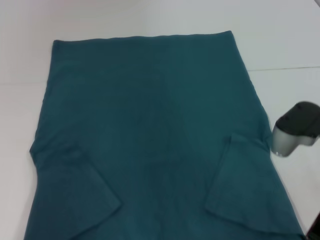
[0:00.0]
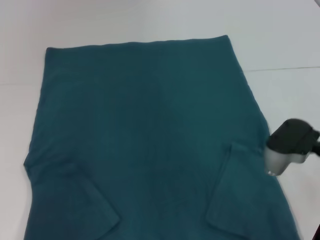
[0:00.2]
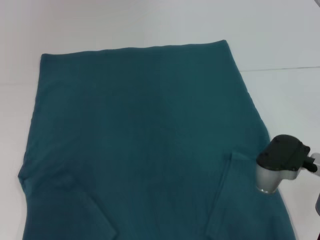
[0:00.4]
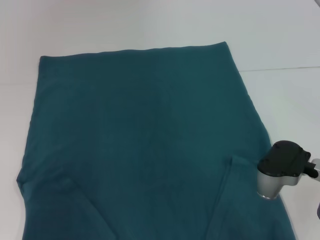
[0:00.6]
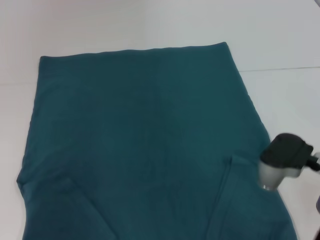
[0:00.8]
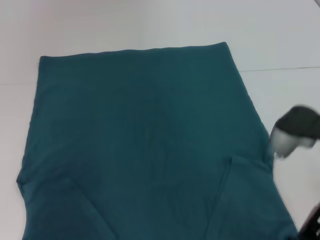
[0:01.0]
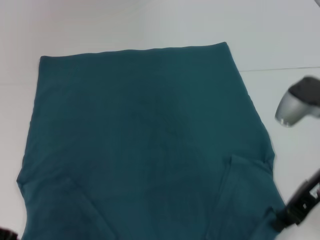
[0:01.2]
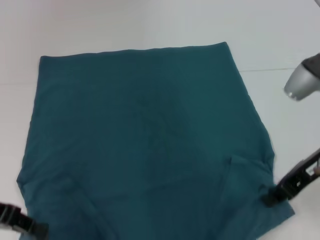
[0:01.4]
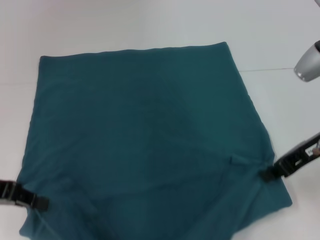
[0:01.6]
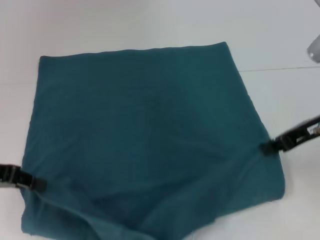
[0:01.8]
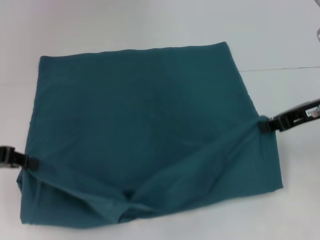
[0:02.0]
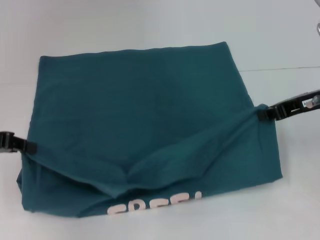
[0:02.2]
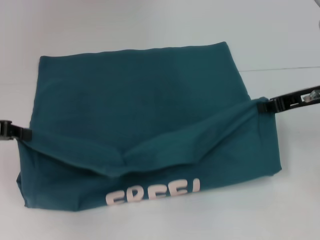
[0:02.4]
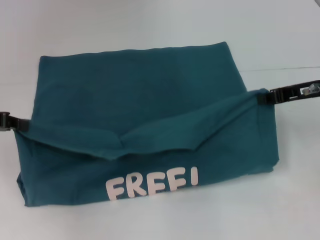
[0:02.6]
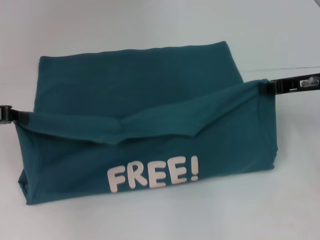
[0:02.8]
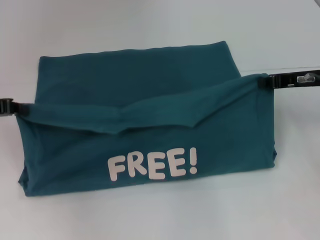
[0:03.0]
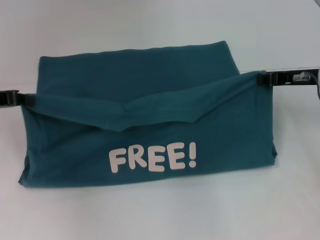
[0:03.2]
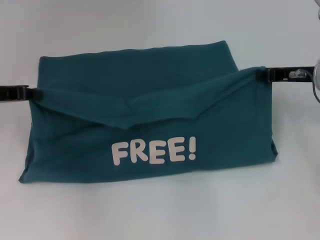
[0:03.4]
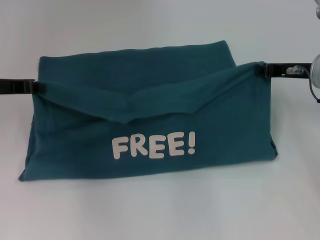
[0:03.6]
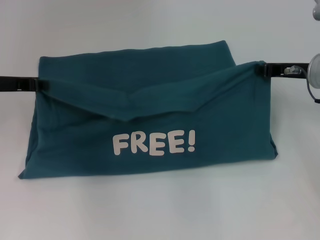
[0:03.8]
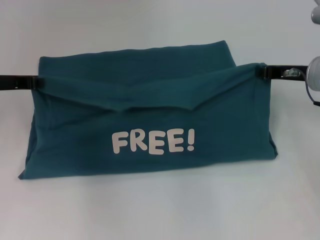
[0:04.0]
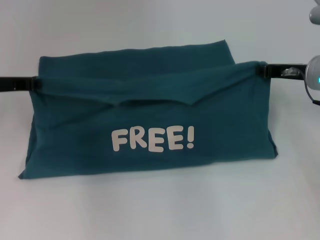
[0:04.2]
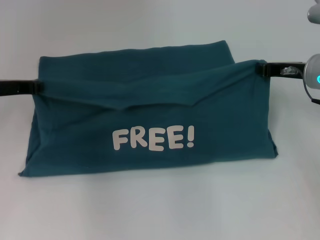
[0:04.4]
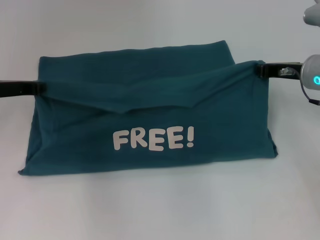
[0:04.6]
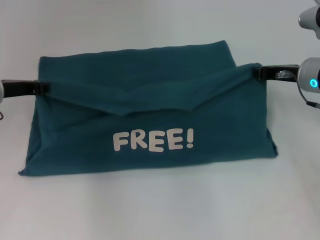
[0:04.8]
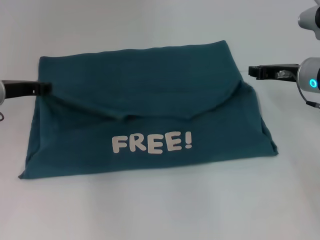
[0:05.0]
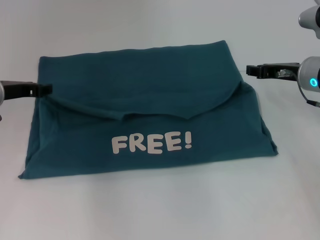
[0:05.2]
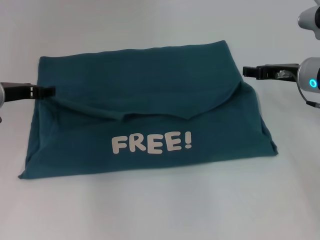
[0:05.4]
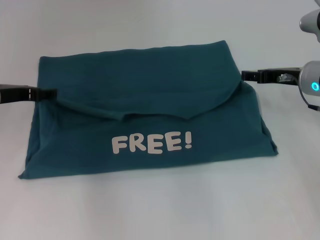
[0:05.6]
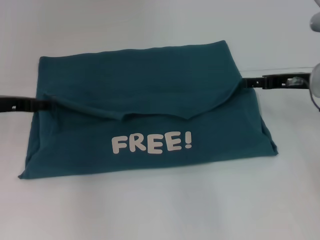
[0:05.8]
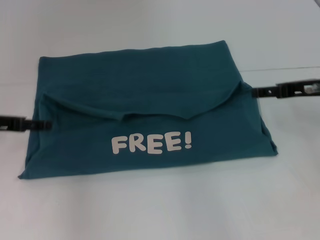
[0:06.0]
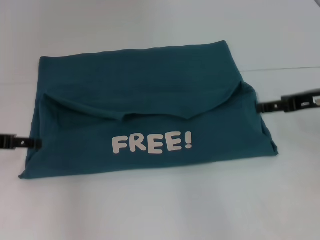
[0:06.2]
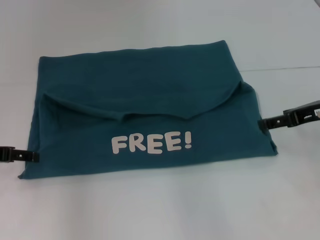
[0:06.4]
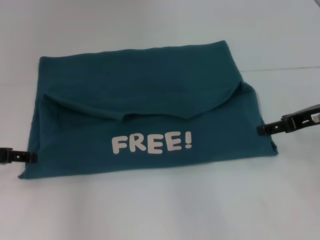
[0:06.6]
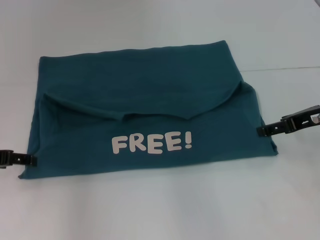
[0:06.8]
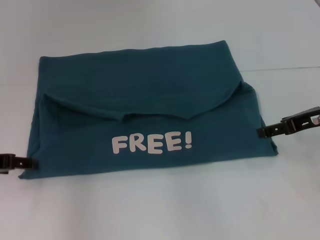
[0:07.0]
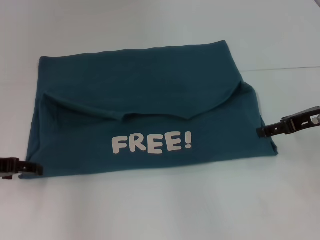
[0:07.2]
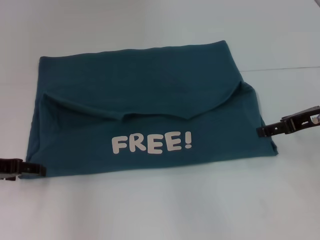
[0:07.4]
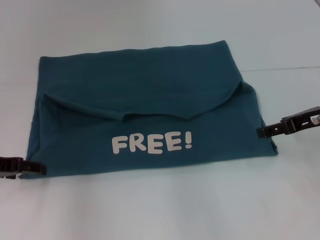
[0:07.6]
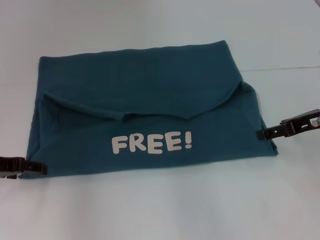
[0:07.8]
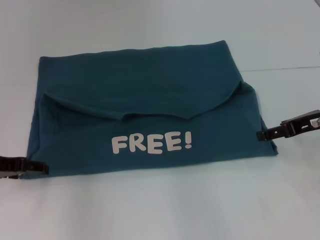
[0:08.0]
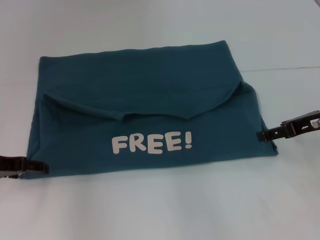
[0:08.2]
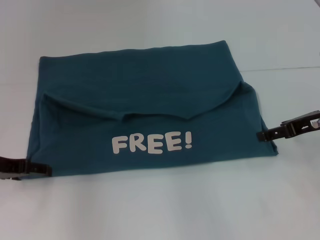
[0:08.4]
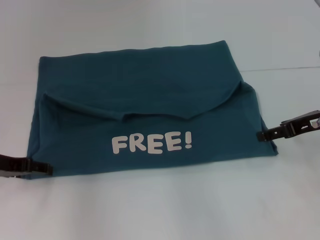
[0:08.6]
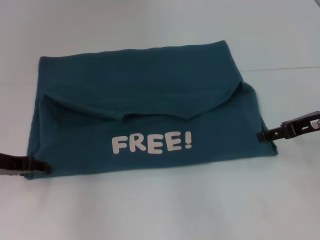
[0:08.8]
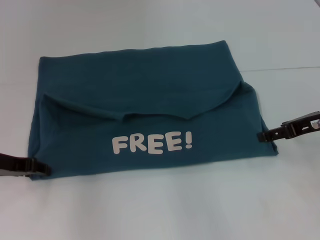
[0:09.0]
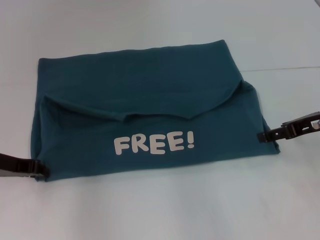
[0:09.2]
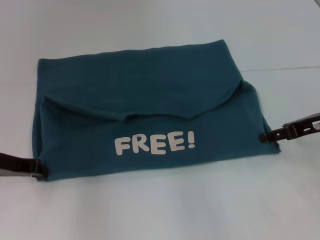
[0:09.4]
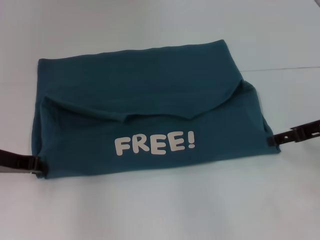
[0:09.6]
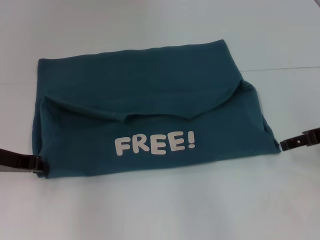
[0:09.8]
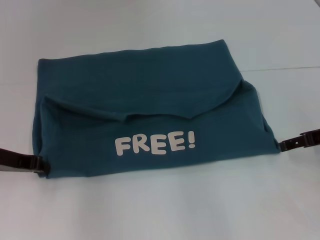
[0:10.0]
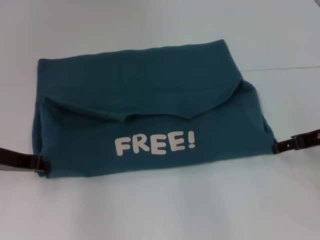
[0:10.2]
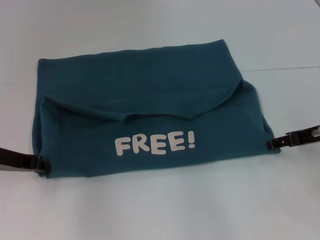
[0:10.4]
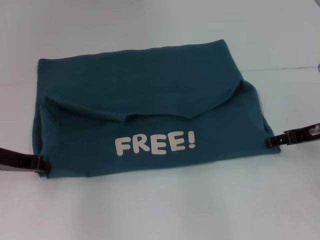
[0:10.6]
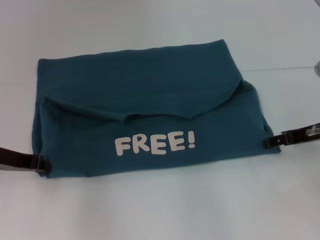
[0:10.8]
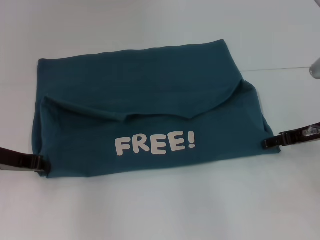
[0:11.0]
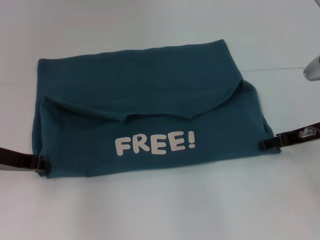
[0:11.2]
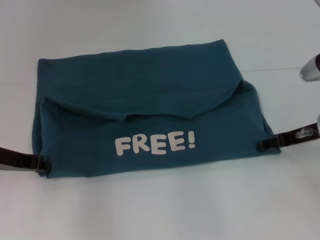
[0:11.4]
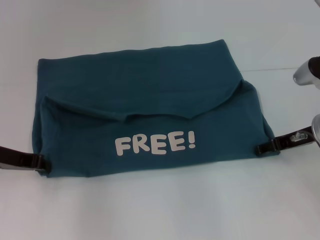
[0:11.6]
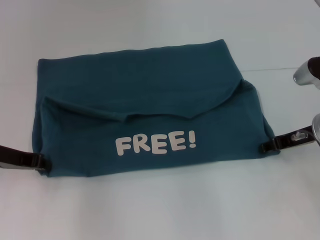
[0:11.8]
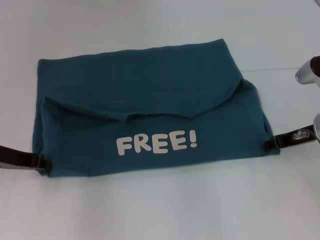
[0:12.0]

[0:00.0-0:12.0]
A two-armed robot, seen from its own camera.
Step, 0:00.0 to 0:05.0: Fold the clothes to the left.
Step, 0:00.0 to 0:05.0: Fold the clothes to the right.
0:00.0 to 0:01.6: The right gripper moves about 5 cm.
0:01.6 to 0:03.0: Both grippers move forward, roughly 5 cm.
0:03.0 to 0:04.4: The left gripper changes place by about 5 cm.
0:04.4 to 0:06.0: The right gripper opens its fingers, while the left gripper shifts about 5 cm backward, and opens.
0:07.6 to 0:09.0: The grippers make only small movements.
0:09.0 to 0:10.4: The left gripper closes.
0:10.4 to 0:12.0: The right gripper closes its fingers.

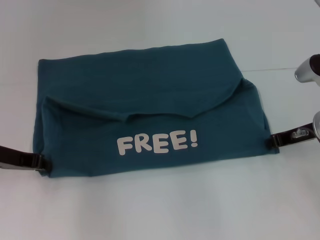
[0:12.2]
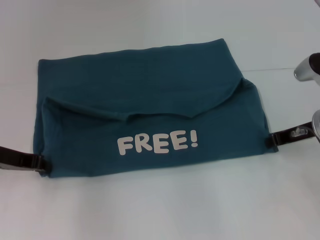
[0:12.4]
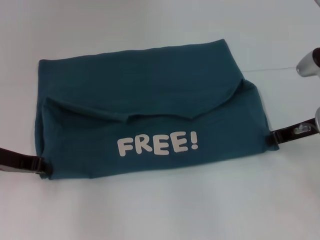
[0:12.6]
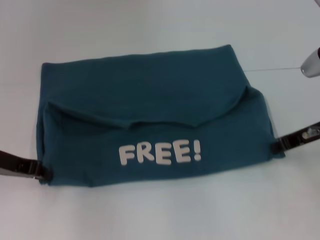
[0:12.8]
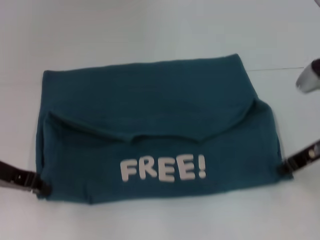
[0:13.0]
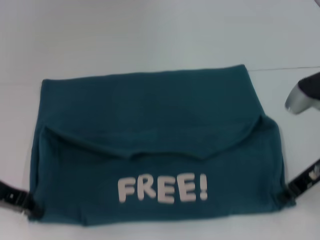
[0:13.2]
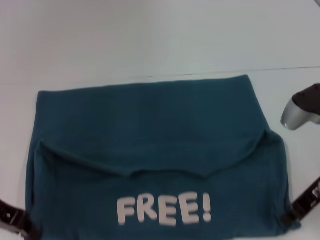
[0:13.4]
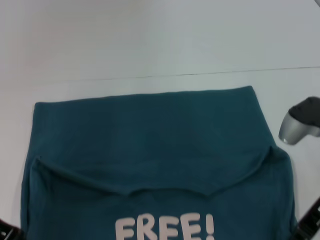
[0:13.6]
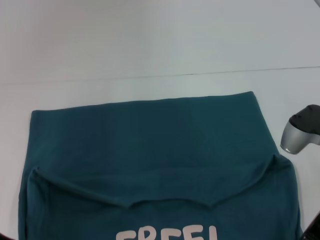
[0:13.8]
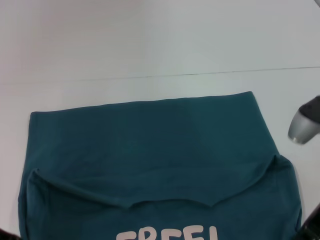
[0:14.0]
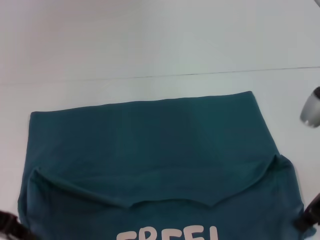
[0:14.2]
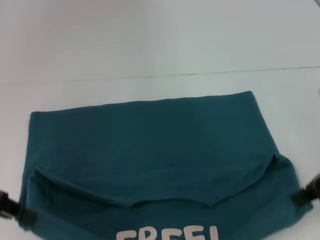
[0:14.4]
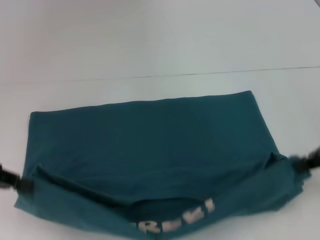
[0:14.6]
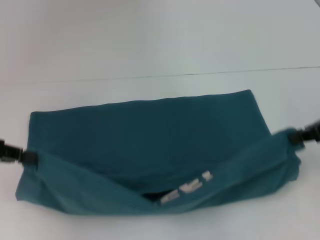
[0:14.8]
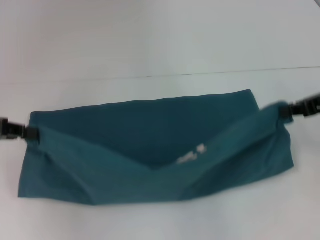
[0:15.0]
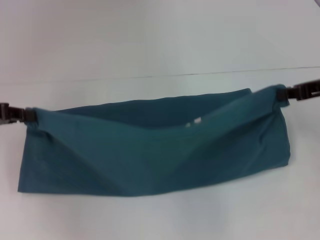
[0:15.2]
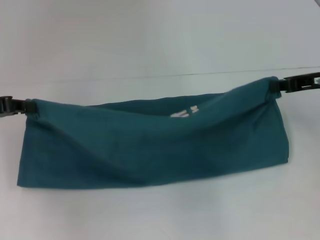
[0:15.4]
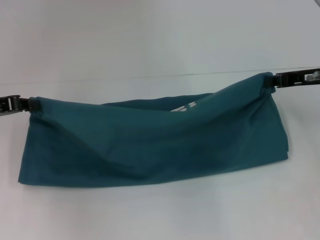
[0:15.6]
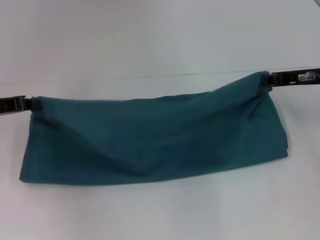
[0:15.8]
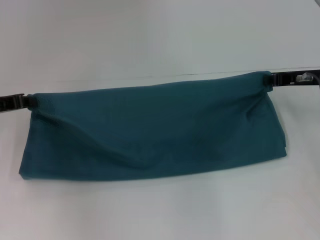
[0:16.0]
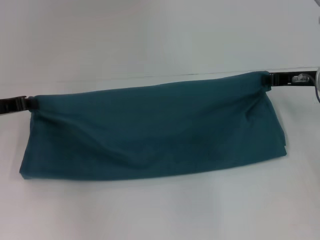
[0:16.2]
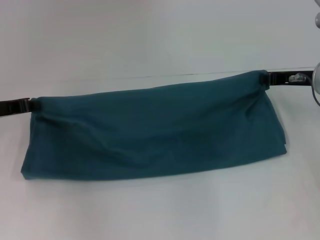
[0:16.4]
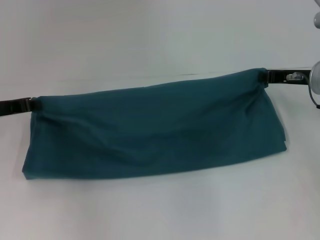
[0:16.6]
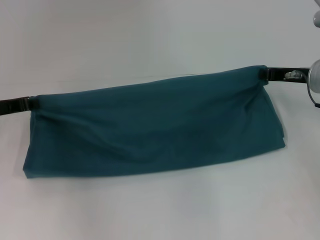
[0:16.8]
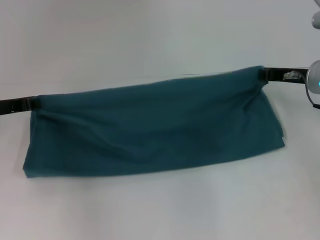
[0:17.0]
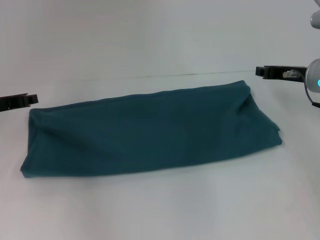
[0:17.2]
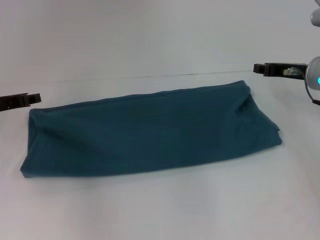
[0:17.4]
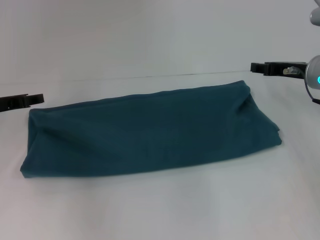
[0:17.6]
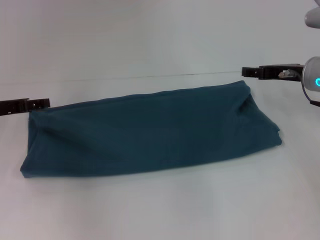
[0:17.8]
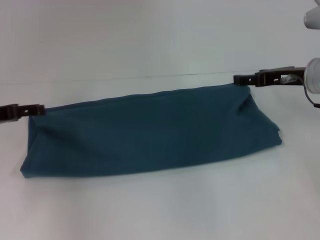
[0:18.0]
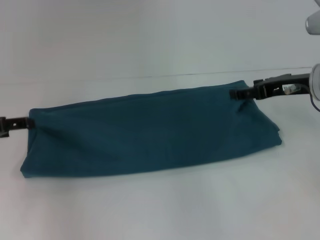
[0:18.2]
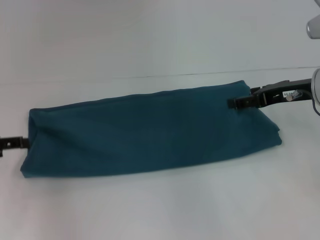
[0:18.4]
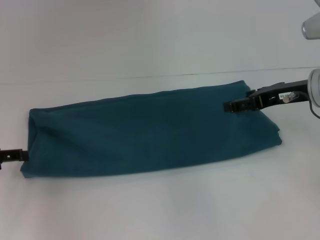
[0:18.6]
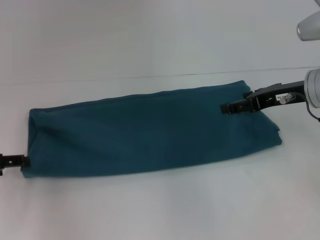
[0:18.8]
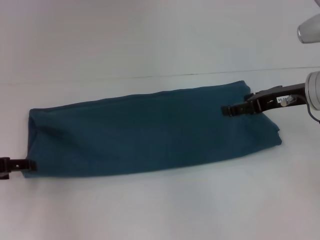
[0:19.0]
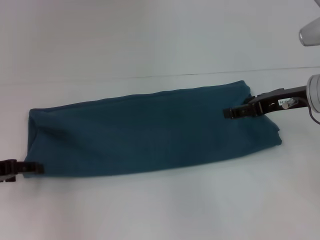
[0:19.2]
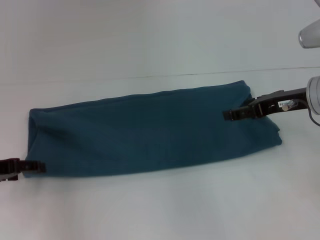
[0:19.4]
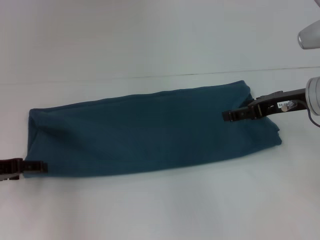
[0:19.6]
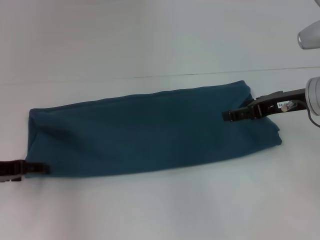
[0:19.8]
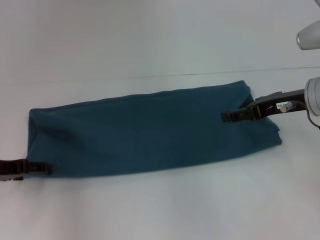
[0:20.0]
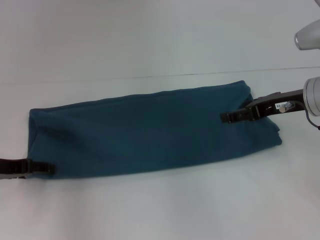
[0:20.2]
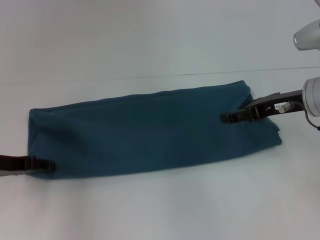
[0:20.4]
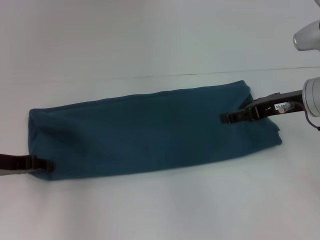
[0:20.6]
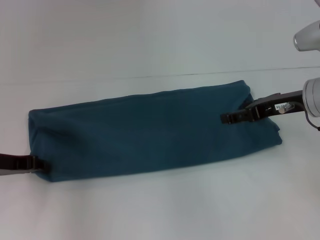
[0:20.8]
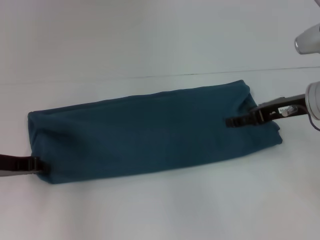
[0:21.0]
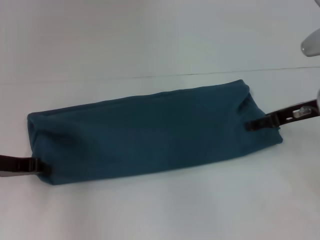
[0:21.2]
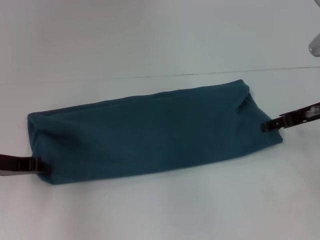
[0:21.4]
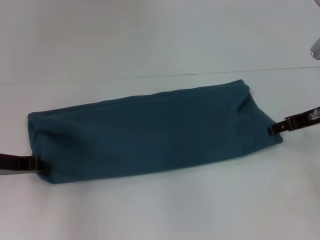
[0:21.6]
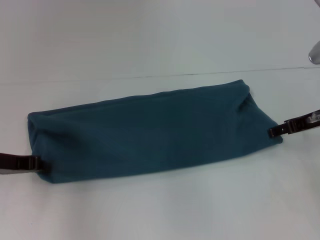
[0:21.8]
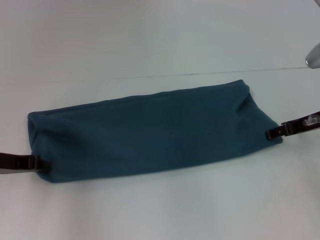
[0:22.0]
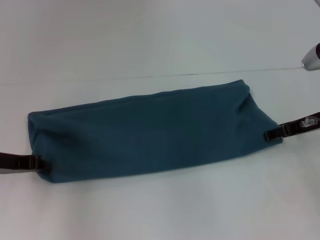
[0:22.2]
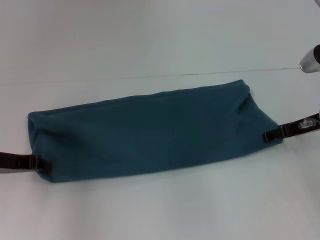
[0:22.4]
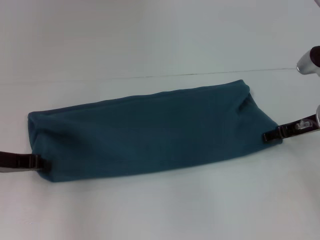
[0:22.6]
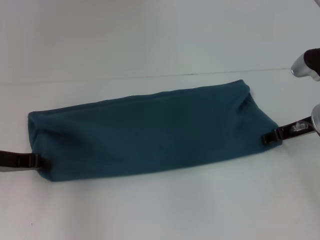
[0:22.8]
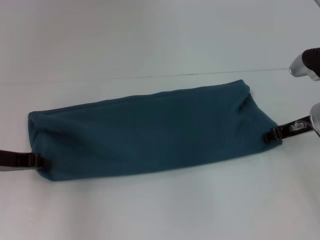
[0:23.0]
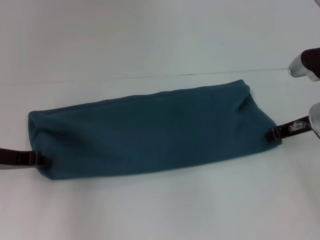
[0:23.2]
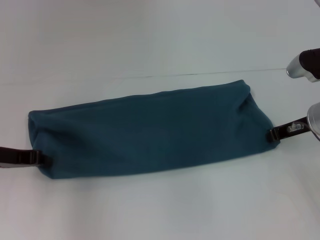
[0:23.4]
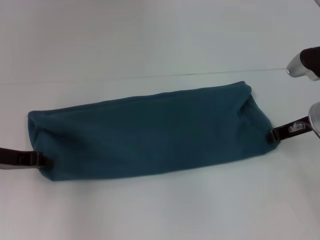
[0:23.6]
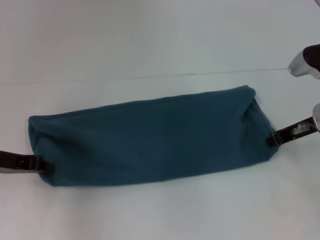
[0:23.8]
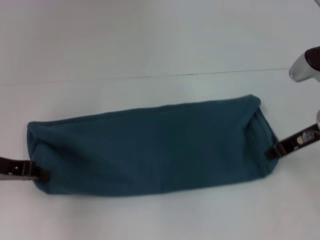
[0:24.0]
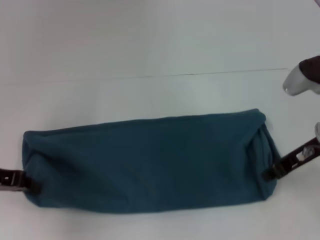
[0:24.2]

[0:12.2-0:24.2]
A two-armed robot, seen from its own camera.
Step, 0:14.0 to 0:17.6: Fold the clothes to the left.
Step, 0:14.0 to 0:17.6: Fold the clothes to the right.
0:12.2 to 0:13.8: The two grippers go roughly 5 cm backward.
0:13.8 to 0:15.2: The left gripper moves forward and to the left, about 10 cm. The right gripper heads forward, to the right and upward, covering about 10 cm.
0:15.2 to 0:16.6: The left gripper changes place by approximately 5 cm, while the right gripper heads downward and forward, covering about 10 cm.
0:16.6 to 0:18.2: The left gripper moves approximately 5 cm, and opens; the right gripper opens.
0:18.2 to 0:19.8: The grippers make only small movements.
0:19.8 to 0:21.2: The left gripper closes up.
0:21.2 to 0:22.6: The grippers make only small movements.
0:22.6 to 0:24.2: The right gripper shifts by roughly 5 cm, and closes.
